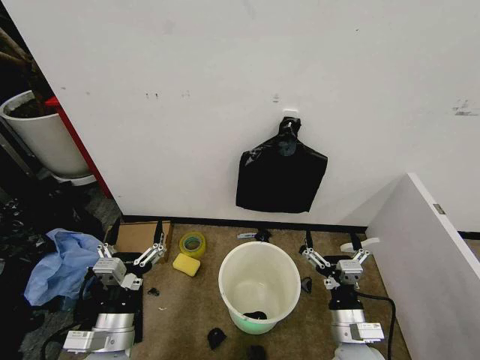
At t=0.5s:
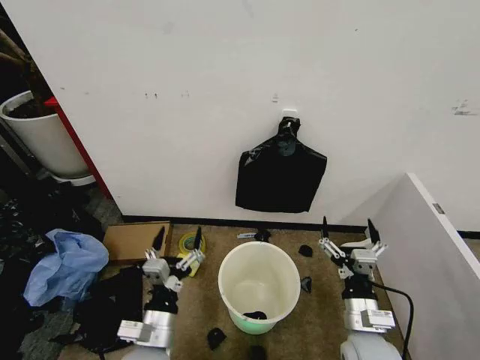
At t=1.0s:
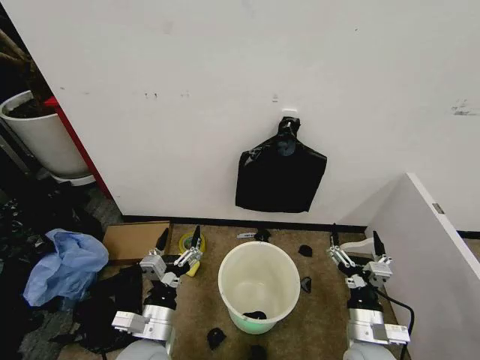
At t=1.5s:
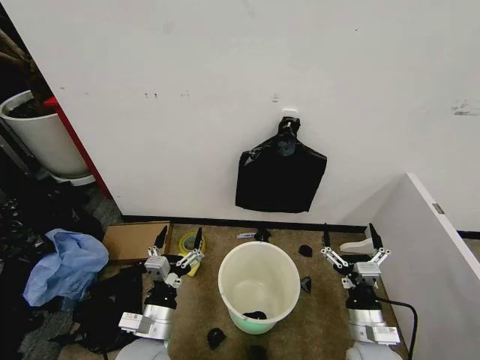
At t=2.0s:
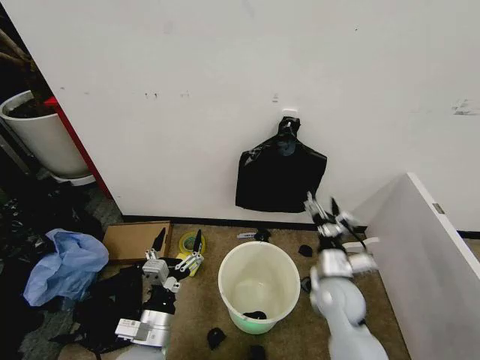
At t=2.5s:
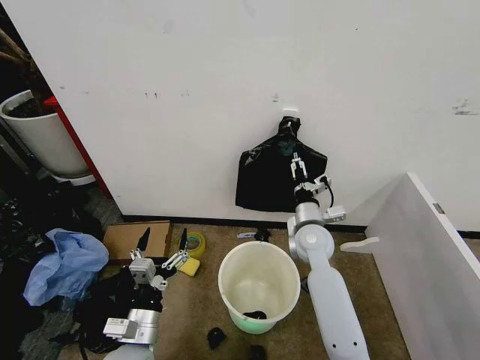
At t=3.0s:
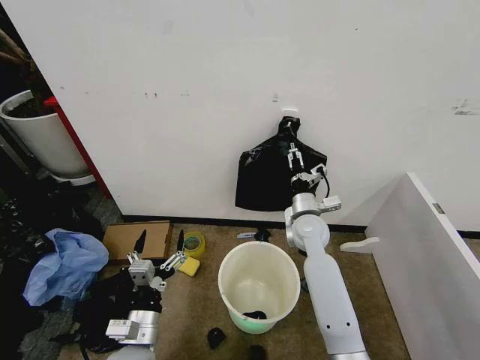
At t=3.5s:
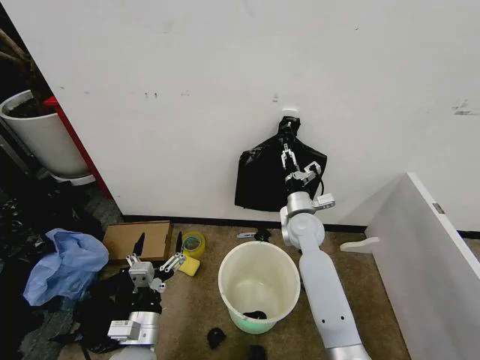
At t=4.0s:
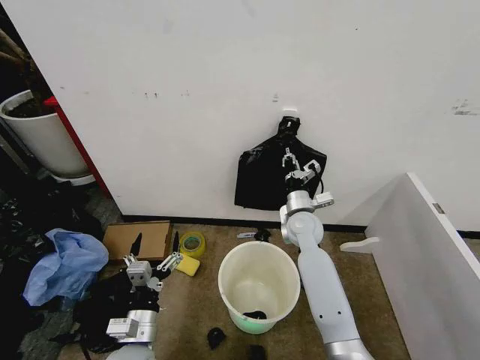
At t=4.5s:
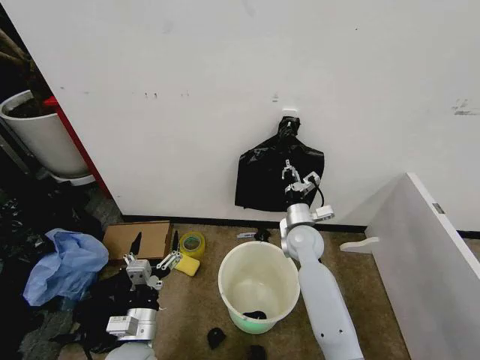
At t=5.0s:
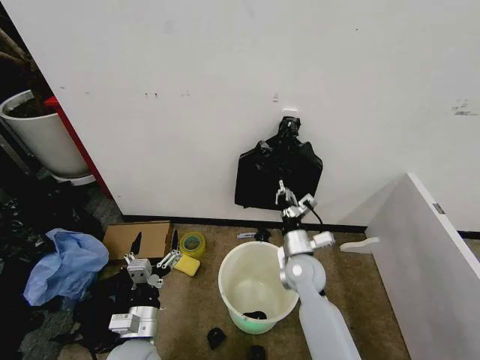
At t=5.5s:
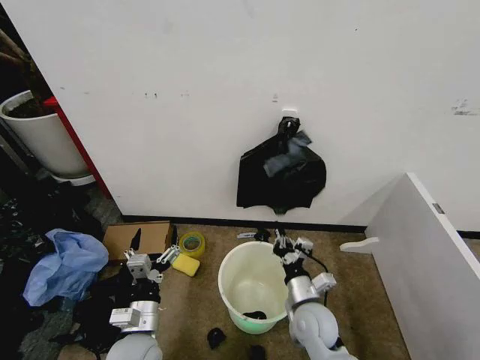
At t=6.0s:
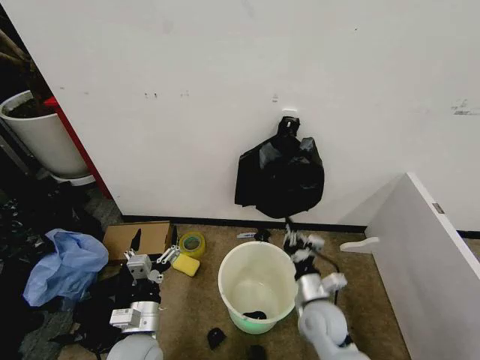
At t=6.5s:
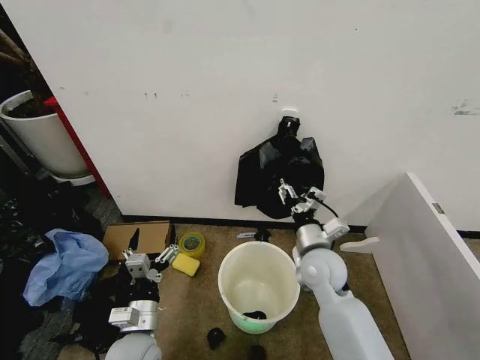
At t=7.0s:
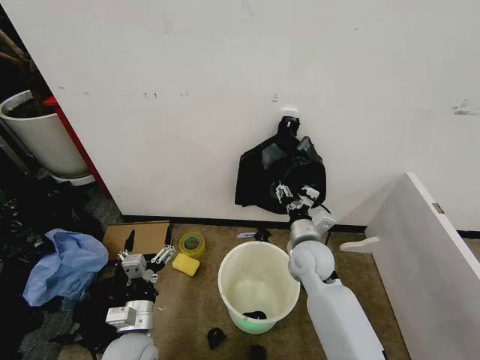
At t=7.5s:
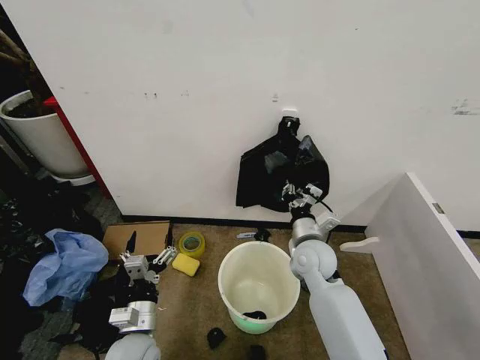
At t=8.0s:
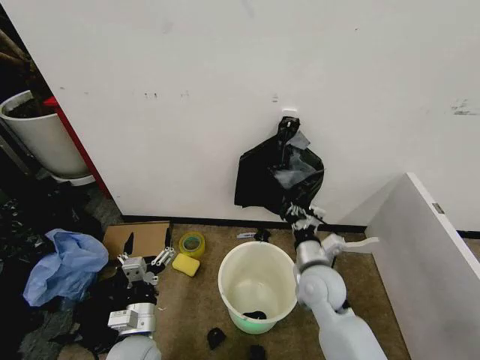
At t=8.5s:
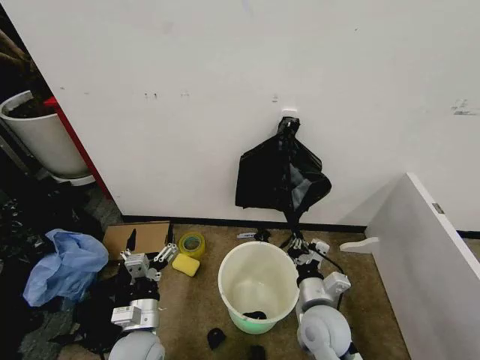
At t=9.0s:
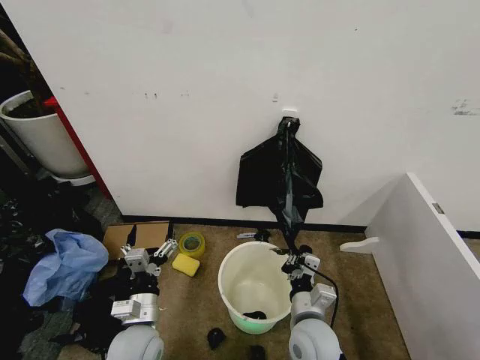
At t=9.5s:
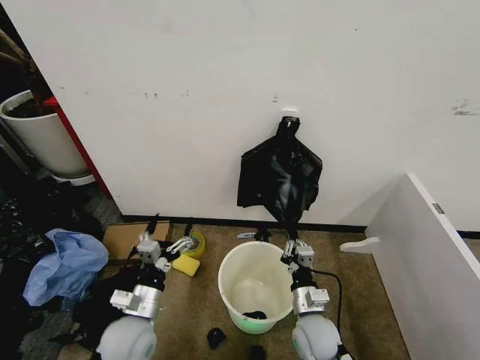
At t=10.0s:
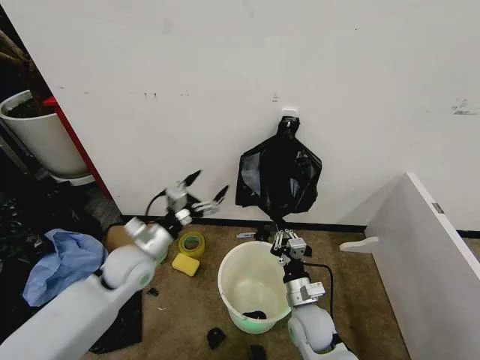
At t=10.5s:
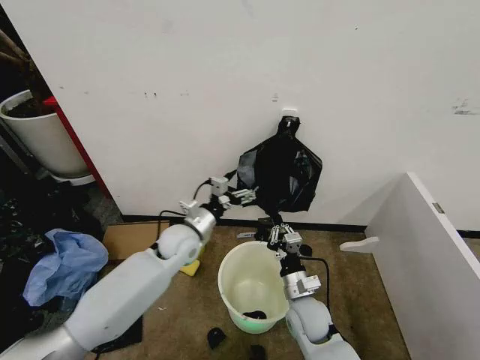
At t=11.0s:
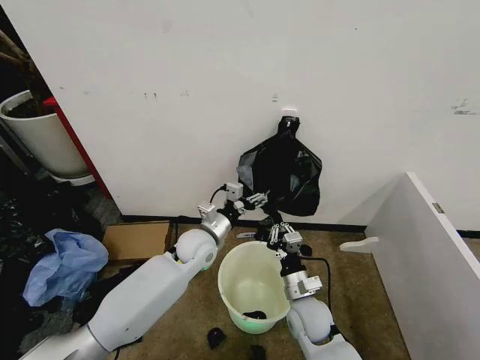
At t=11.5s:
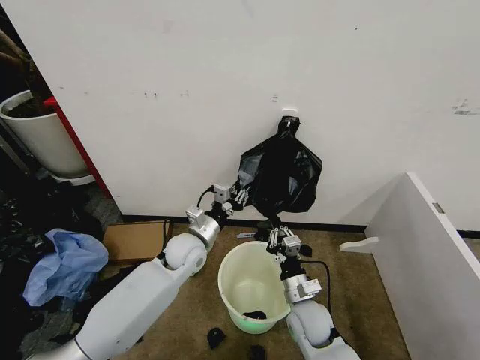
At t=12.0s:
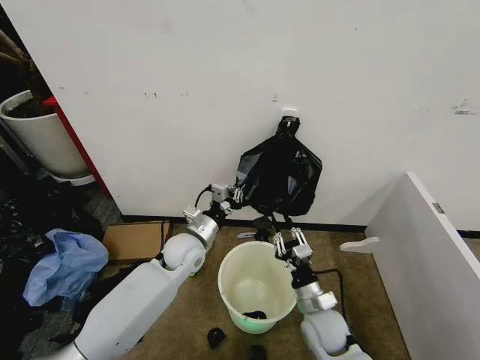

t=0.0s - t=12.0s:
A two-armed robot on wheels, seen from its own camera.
Task of the whole recording: Place the garbage bag over the trash bin.
t=2.0s - t=4.0s: The right gripper shifts some 20 cm forward, and closes its fingers.
t=4.0s - t=6.0s: The right gripper is displaced backward and downward by some 25 cm.
t=6.0s - t=8.0s: The right gripper is displaced upward and forward by some 10 cm, and opens, then closes once more.
t=8.0s - t=10.0s: The left gripper heads forward and upward, covering approximately 20 cm; the right gripper is displaced downward by about 10 cm.
t=10.0s - t=12.0s: The left gripper goes about 10 cm to the right and forward, and closes.

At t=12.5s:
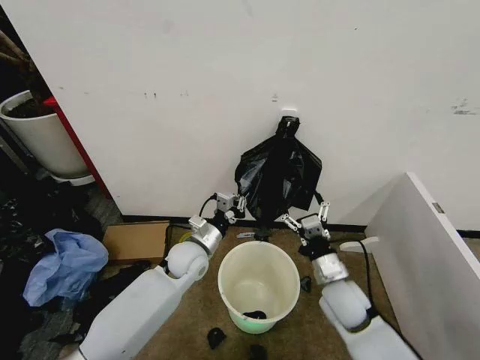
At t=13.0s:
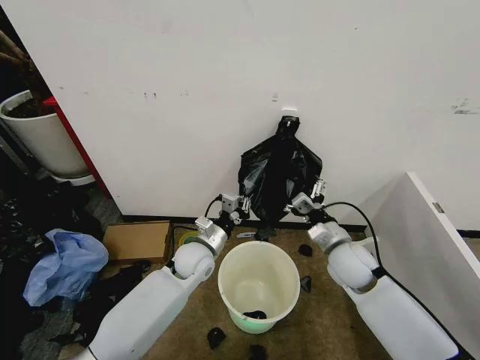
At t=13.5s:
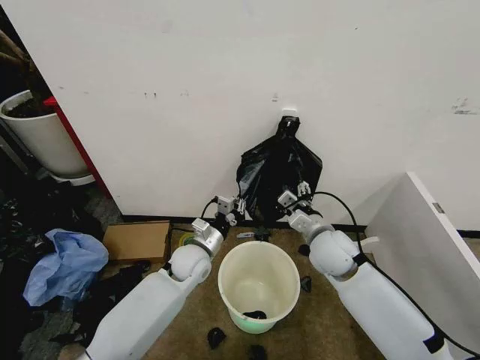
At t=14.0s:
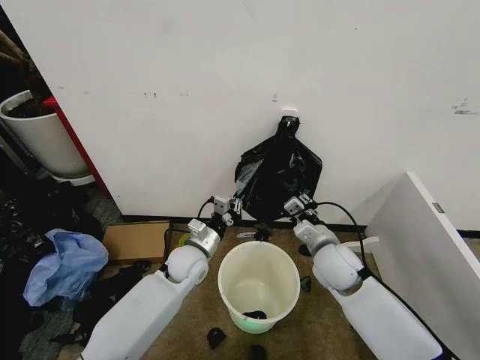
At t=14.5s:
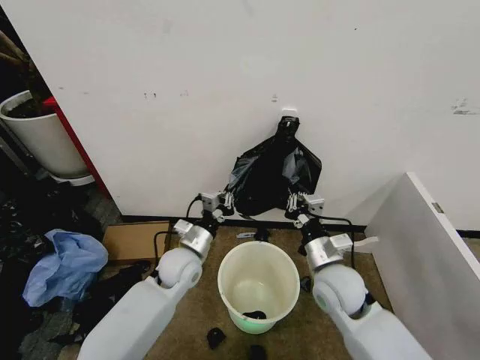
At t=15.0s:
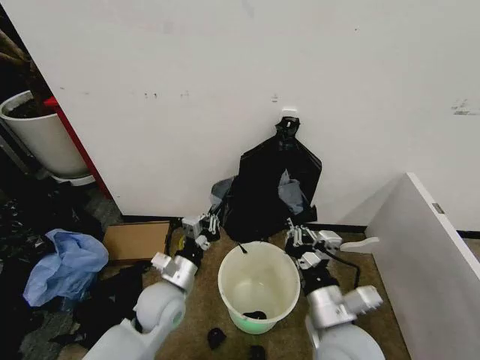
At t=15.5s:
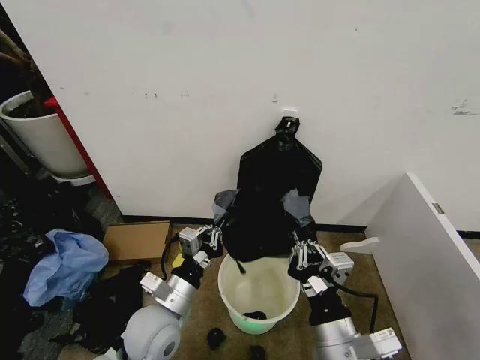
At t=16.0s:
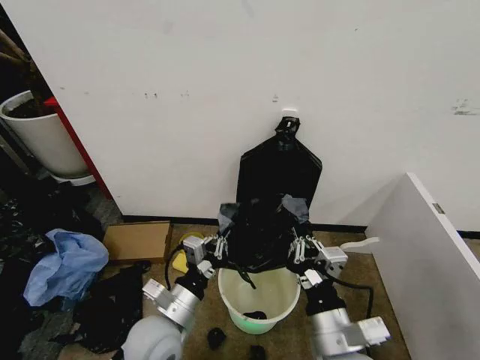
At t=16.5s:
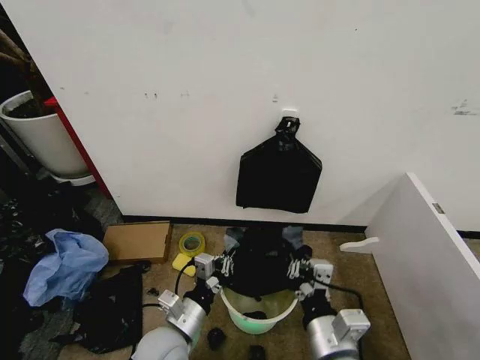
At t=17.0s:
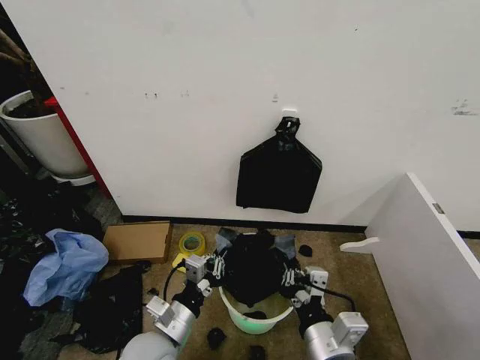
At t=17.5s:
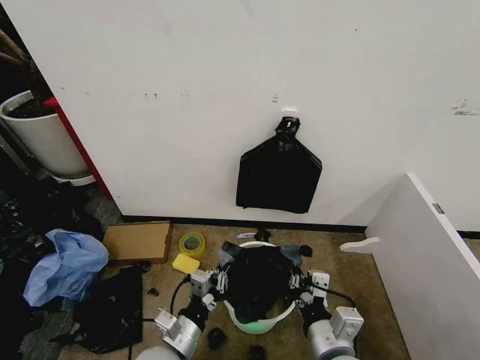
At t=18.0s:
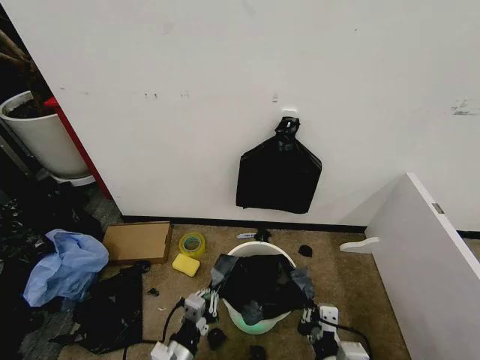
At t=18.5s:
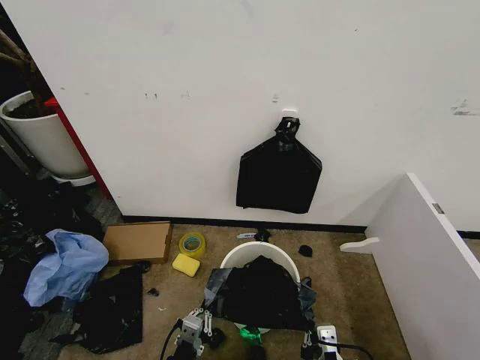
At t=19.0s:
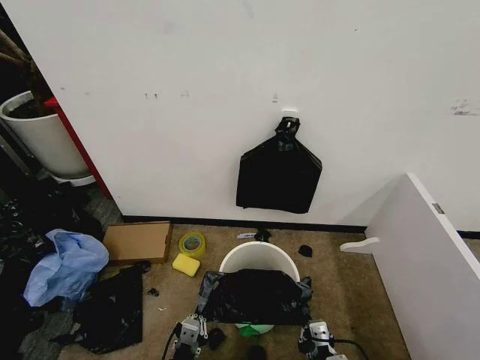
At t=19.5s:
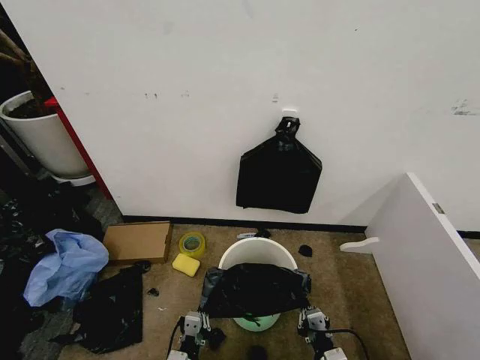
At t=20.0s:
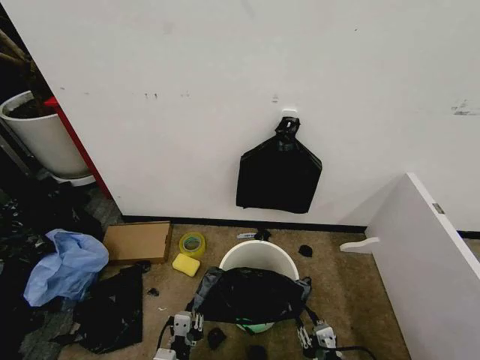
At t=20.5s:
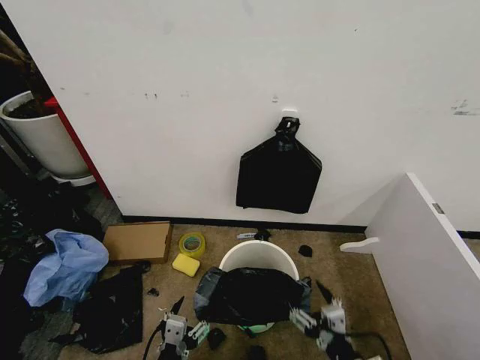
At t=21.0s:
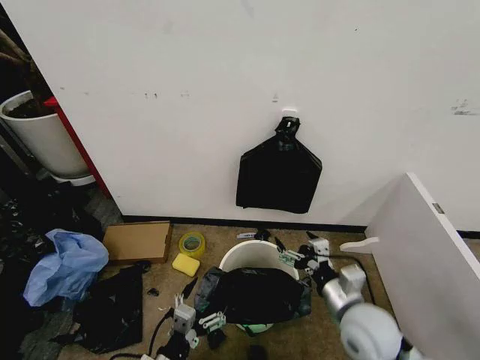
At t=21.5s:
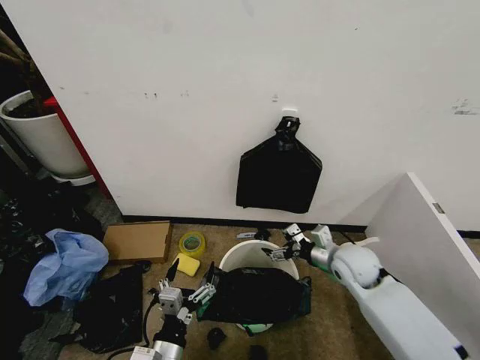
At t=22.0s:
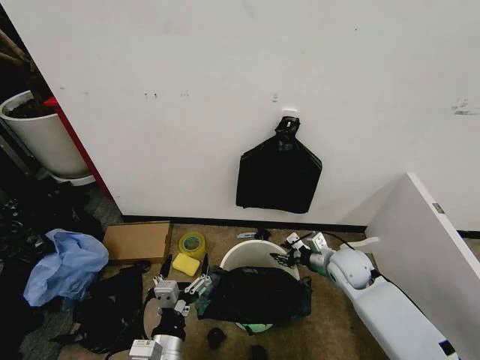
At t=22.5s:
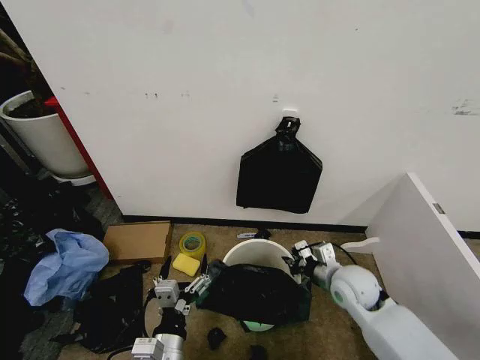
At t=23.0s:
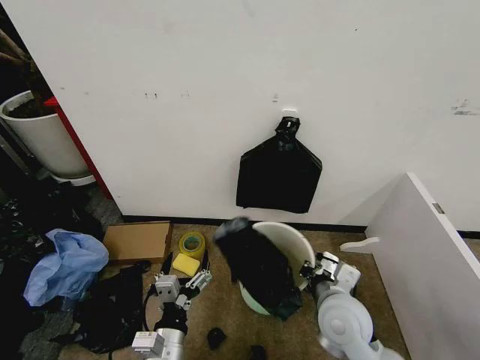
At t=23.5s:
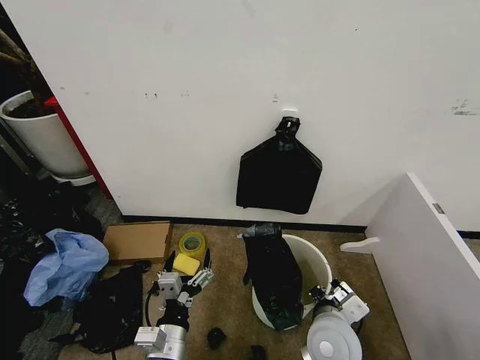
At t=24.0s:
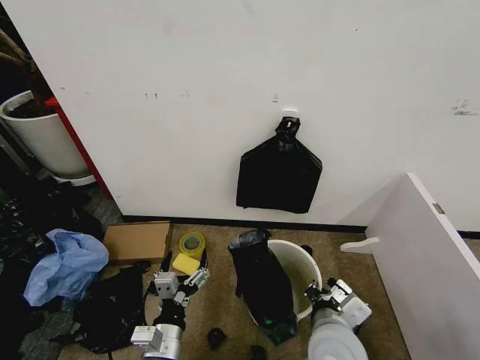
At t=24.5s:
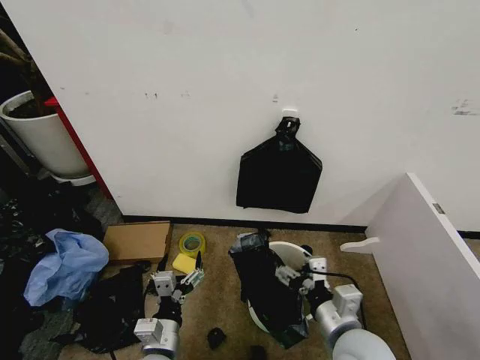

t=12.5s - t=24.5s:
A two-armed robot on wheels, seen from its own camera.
Task of the whole recording: Place the garbage bag over the trash bin.
t=12.5s - t=14.5s: The right gripper heads upward, covering about 5 cm, and closes up.
t=14.5s - t=16.5s: The two grippers go roughly 15 cm backward.
t=16.5s - t=18.5s: The left gripper shifts roughly 15 cm backward and downward; the right gripper is displaced downward and backward by approximately 10 cm.
t=18.5s - t=20.5s: The right gripper reaches about 10 cm downward, then returns, and opens, while the left gripper heads upward, covering roughly 5 cm, and opens its fingers.
t=20.5s - t=22.5s: The right gripper heads forward, covering approximately 25 cm, and closes; the left gripper ends up roughly 5 cm from where it was.
t=22.5s - t=24.5s: The right gripper shifts about 15 cm backward, and opens its fingers.

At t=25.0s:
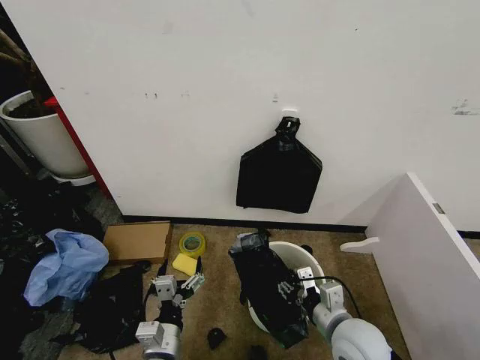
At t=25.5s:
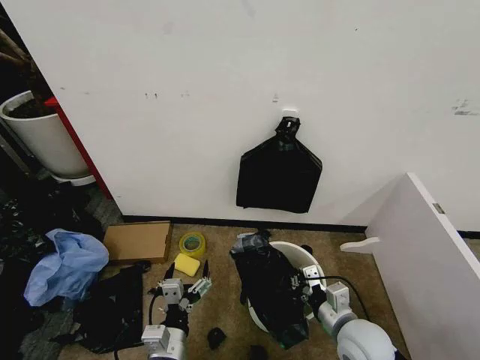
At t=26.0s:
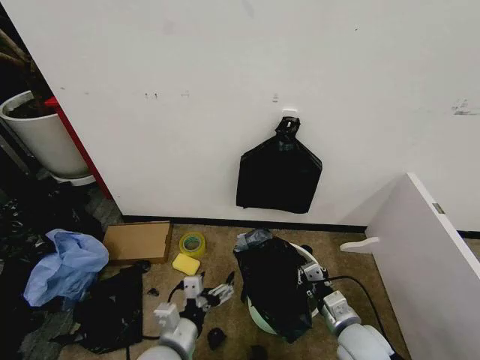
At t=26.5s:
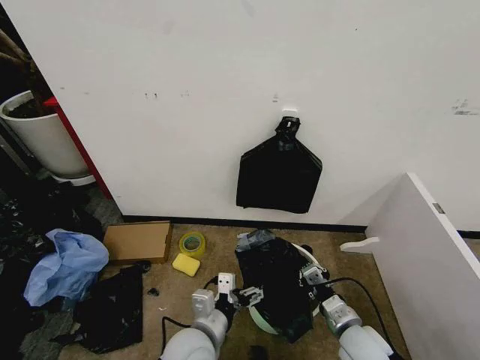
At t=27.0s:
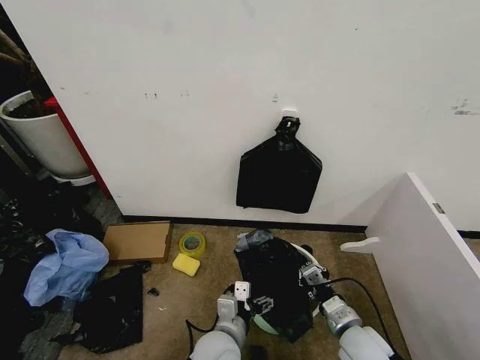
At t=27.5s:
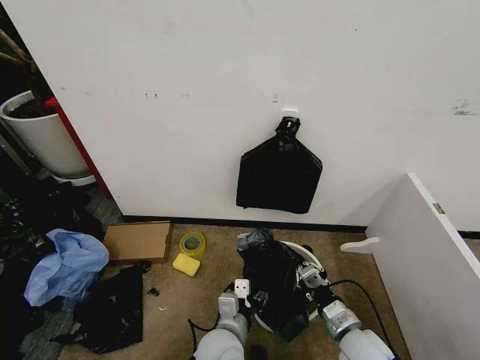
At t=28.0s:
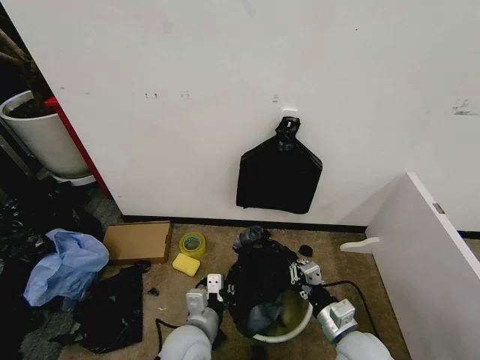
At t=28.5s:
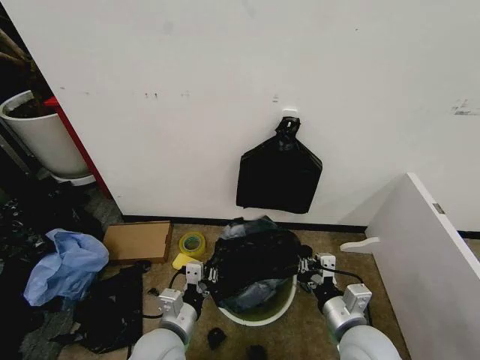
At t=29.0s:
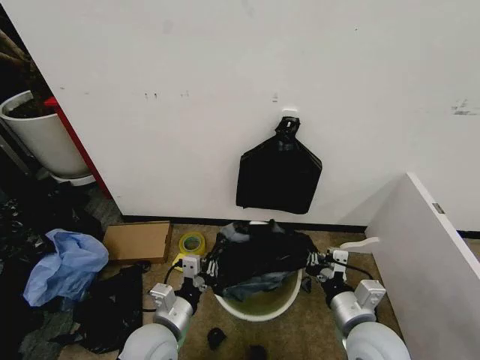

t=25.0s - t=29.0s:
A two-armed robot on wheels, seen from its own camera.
Task of the whole recording: Place the garbage bag over the trash bin.
t=25.0s - t=27.0s: The left gripper goes some 10 cm to the right. The right gripper is displaced downward by approximately 5 cm, and closes up.
t=27.0s - t=29.0s: The left gripper shifts approximately 10 cm to the left, and closes its fingers. Meanwhile the right gripper travels upward by roughly 10 cm.
